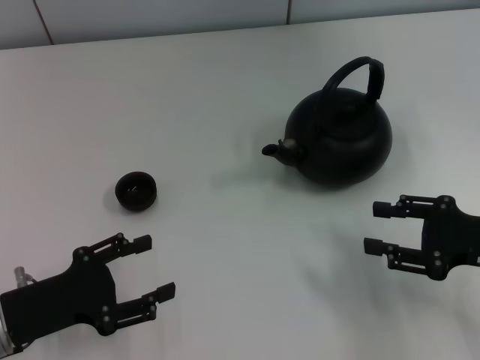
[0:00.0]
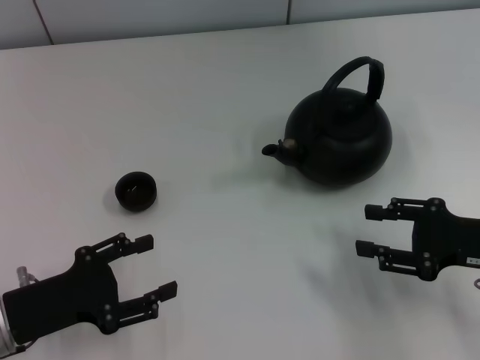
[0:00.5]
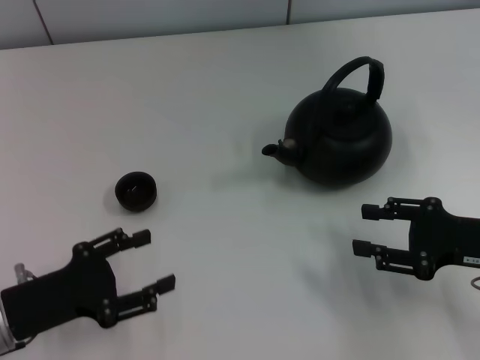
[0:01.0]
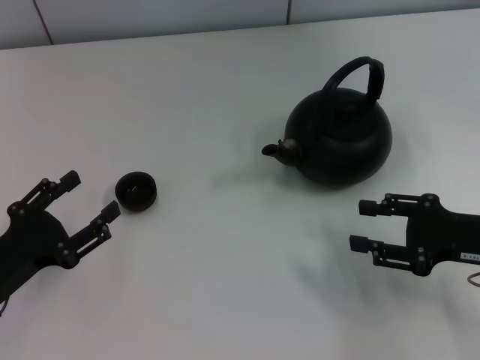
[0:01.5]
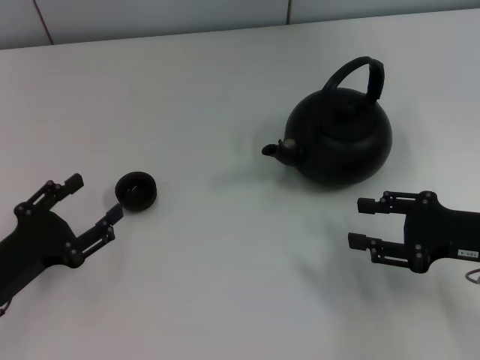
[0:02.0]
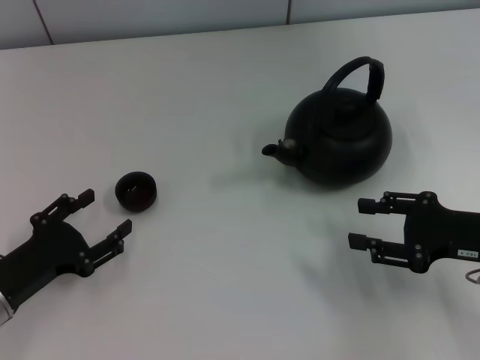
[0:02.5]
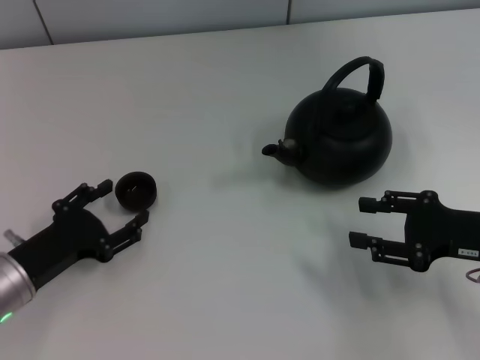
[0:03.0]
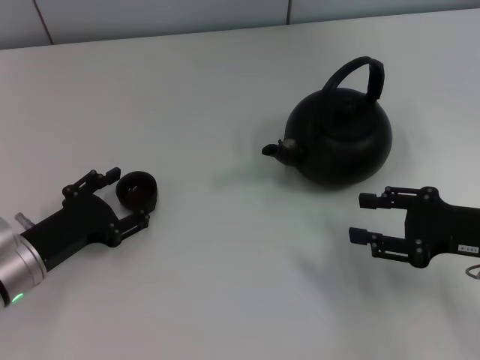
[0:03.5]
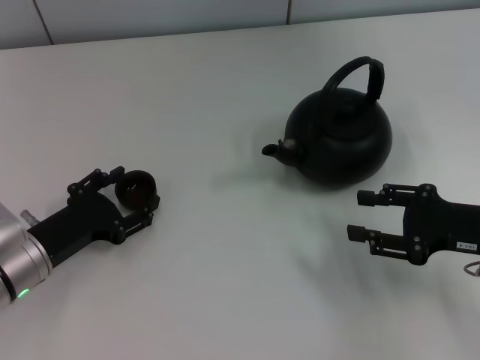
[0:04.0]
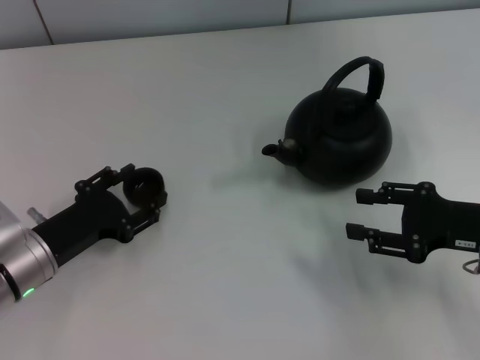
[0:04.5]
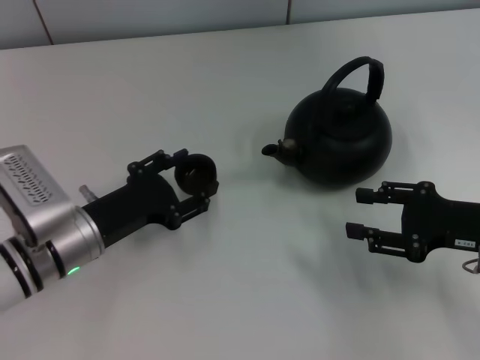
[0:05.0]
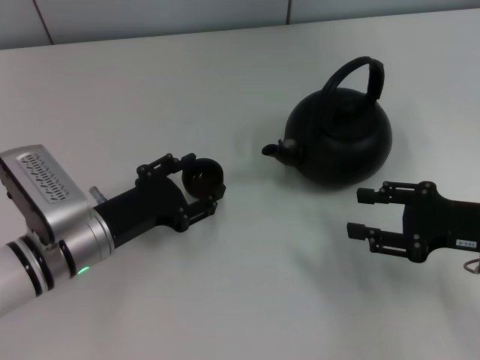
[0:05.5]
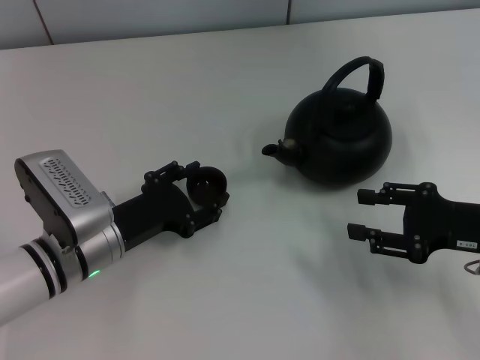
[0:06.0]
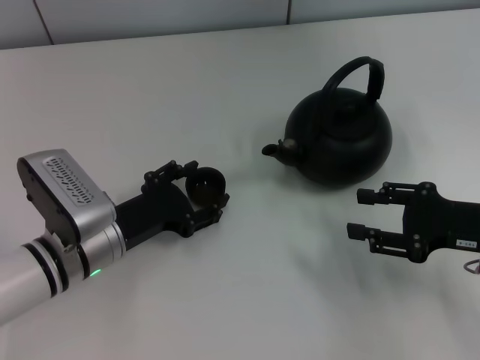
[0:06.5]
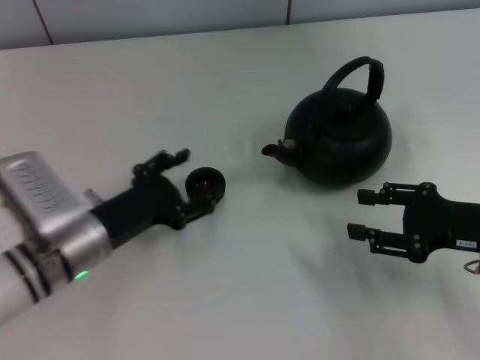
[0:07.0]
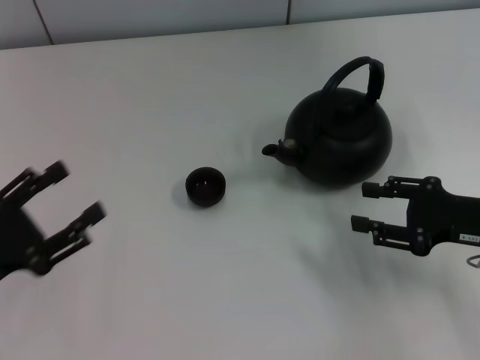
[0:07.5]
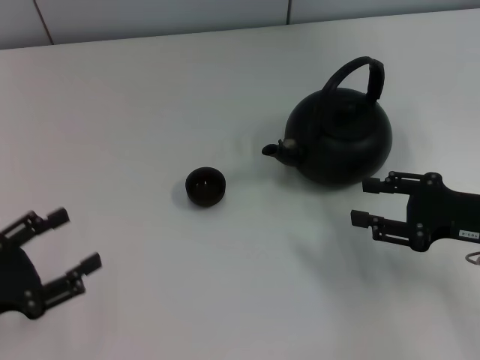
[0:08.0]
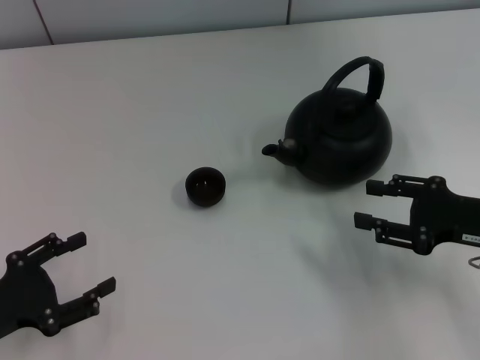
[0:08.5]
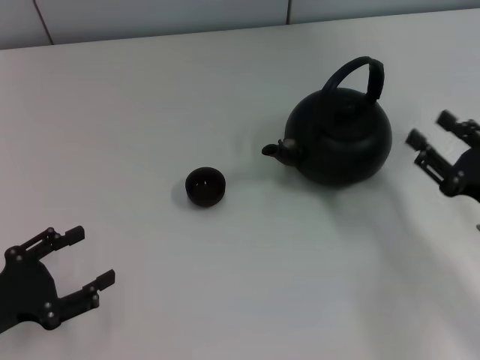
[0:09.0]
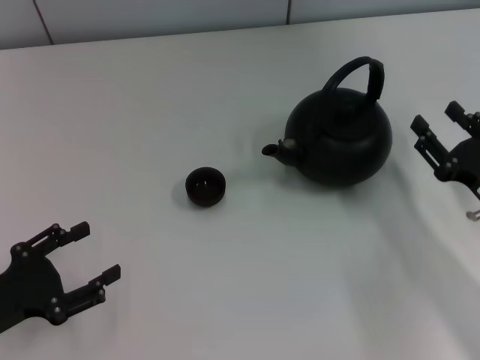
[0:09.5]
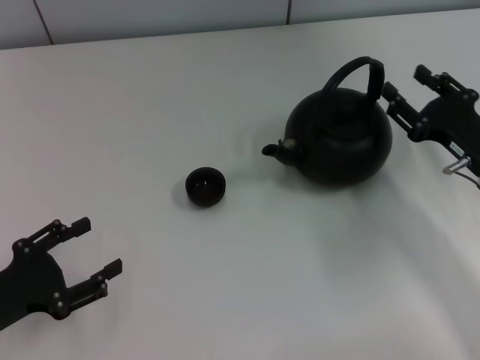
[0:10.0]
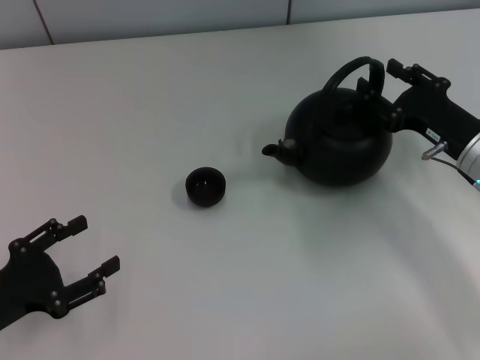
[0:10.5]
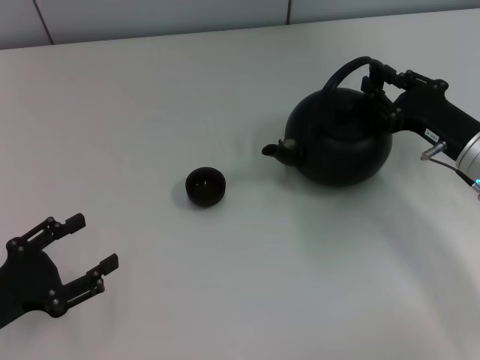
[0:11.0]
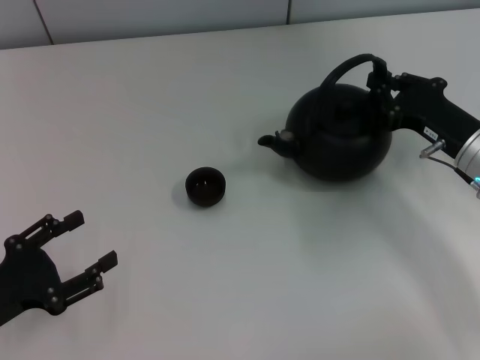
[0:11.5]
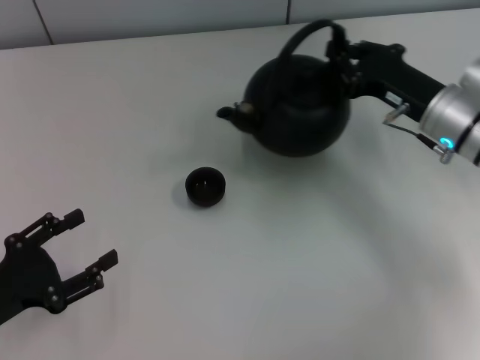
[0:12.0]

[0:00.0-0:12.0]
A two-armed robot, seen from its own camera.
Task of the whole recording: Grasp the handle of the teapot with one hand and pour tea into the teacup.
Step, 0:00.0 to 0:05.0: Pick up the teacup with the left gripper.
Step, 0:05.5 to 0:07.0: Place the teacup in the center of view with the left gripper.
Step, 0:07.5 to 0:11.5: Pick up the teapot with the right gripper.
0:02.0 to 0:04.0: The left gripper moves approximately 5 cm.
0:04.0 to 0:06.0: The left gripper is displaced to the right by some 5 cm.
0:06.0 to 0:08.0: The left gripper shifts roughly 15 cm to the left and backward.
0:10.0 to 0:12.0: The right gripper travels forward by about 5 cm, and closes up.

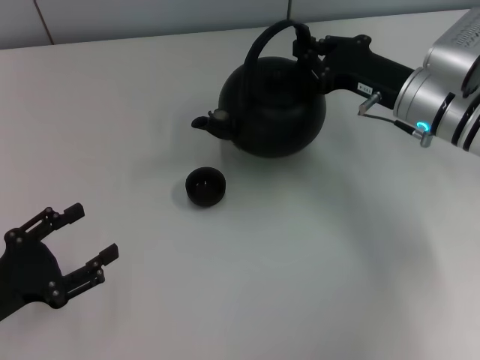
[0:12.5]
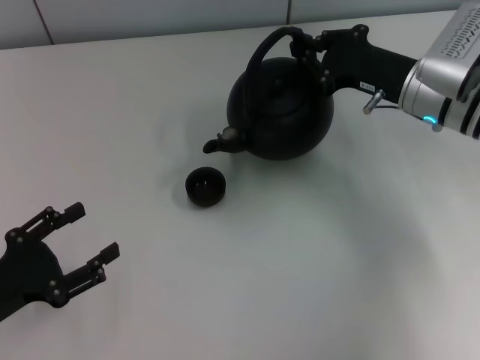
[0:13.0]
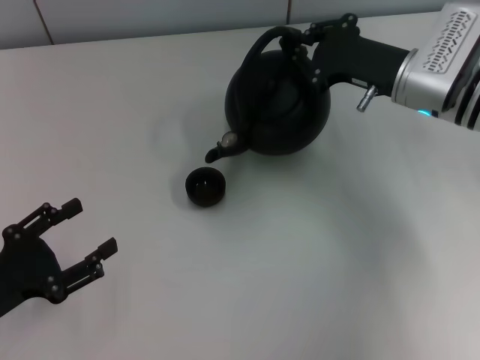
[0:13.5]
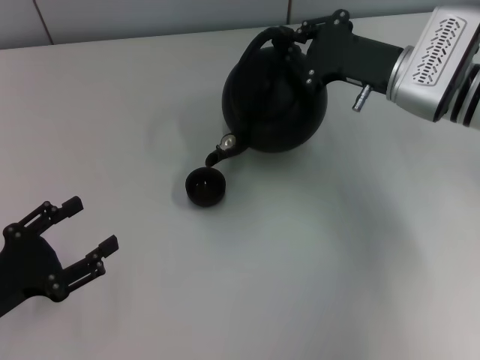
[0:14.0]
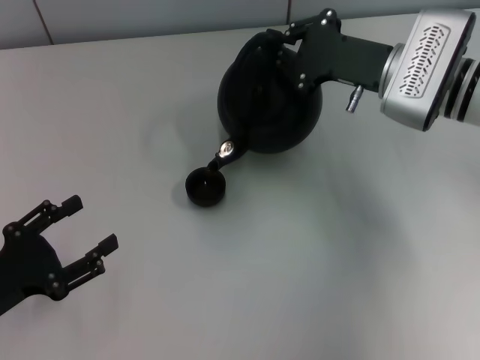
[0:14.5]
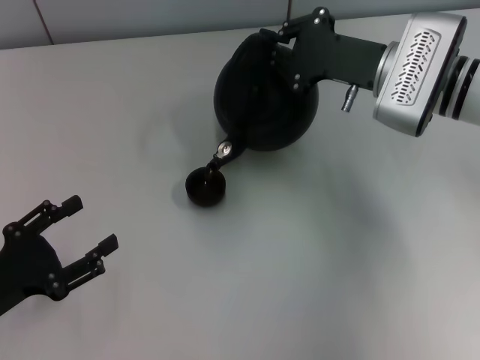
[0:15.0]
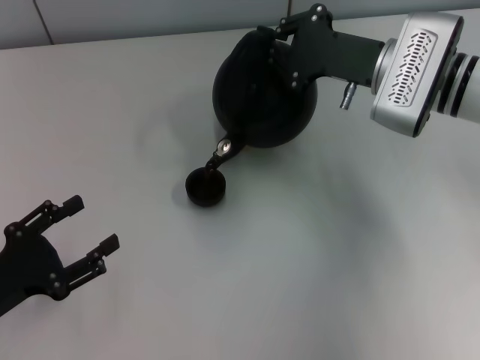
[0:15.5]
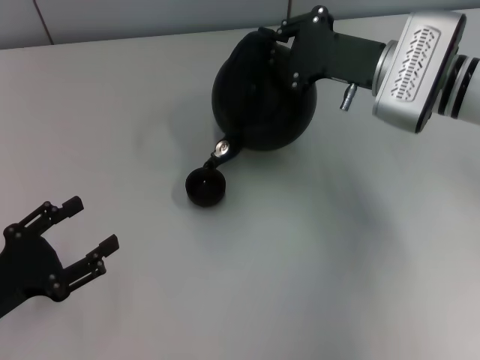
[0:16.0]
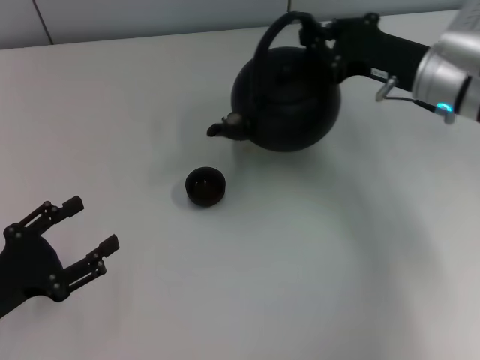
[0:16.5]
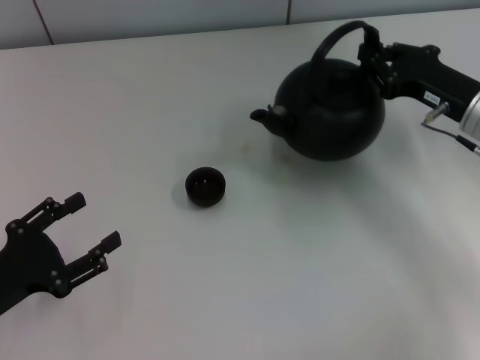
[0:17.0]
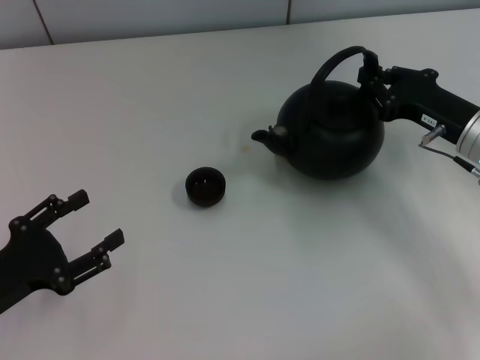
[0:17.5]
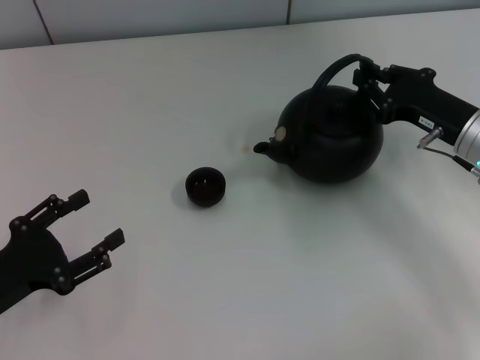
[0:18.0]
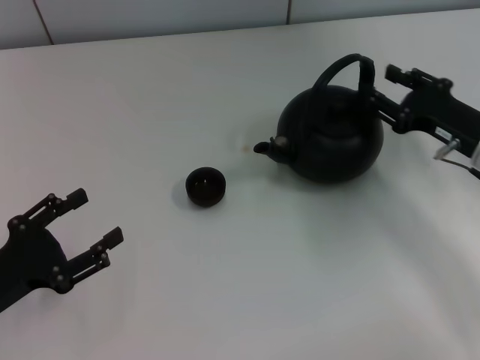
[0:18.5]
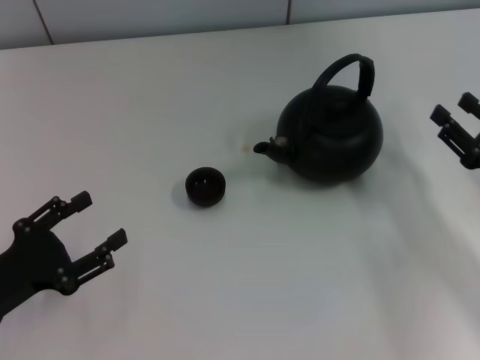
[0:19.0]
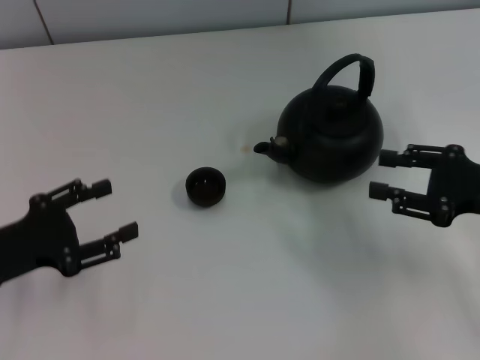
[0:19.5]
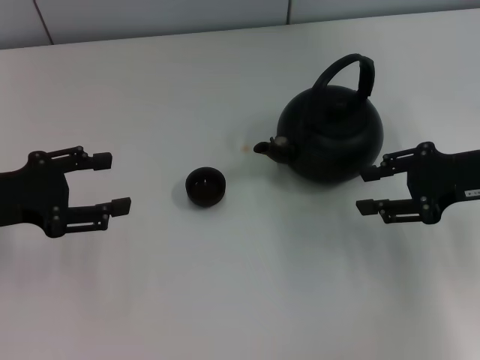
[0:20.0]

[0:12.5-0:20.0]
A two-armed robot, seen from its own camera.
Task of the whole recording: Grasp the handle of the teapot with one hand and pour tea into the teacup.
Step, 0:17.0 to 0:18.5: Put down the teapot with the right gripper.
0:16.5 to 0:18.0: The right gripper travels backward by approximately 5 cm.
0:18.0 to 0:20.0: The left gripper goes approximately 10 cm forward and upward. Meanwhile the right gripper shifts approximately 5 cm upward, reaches approximately 10 cm backward, then returns, and opens.
